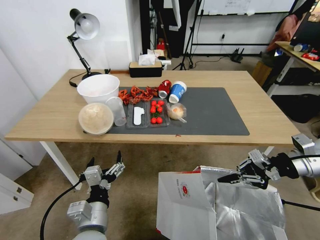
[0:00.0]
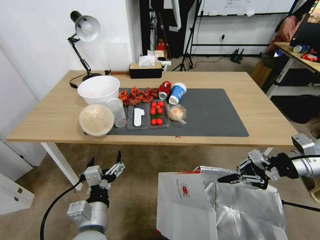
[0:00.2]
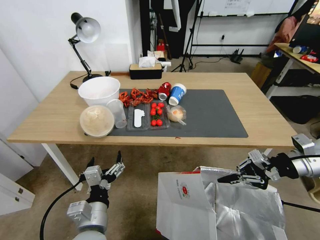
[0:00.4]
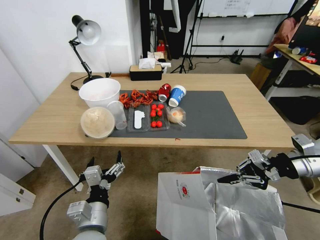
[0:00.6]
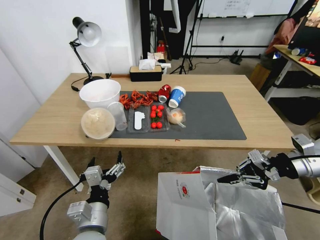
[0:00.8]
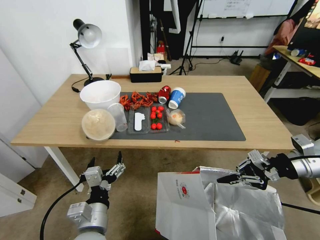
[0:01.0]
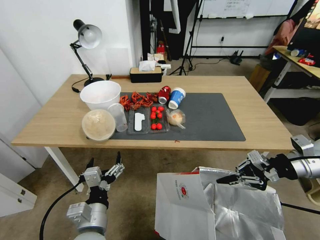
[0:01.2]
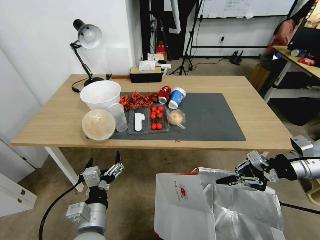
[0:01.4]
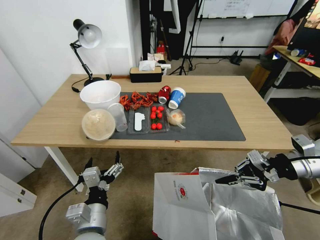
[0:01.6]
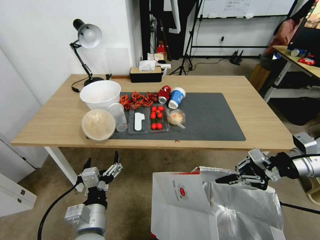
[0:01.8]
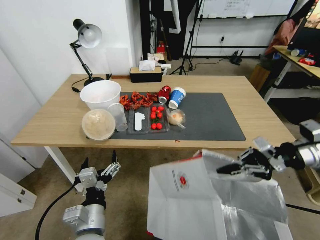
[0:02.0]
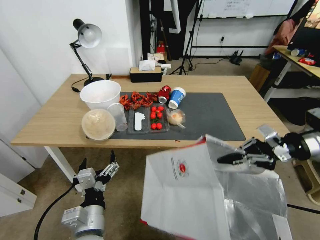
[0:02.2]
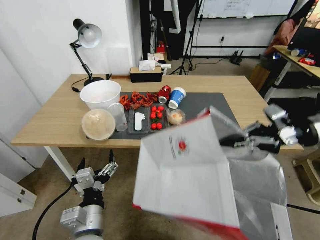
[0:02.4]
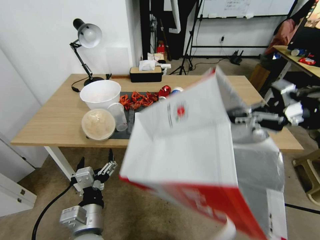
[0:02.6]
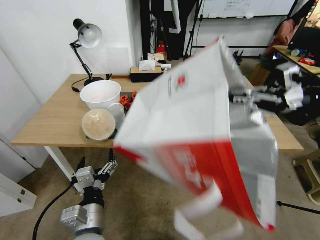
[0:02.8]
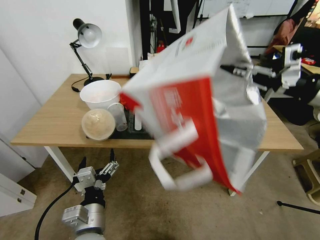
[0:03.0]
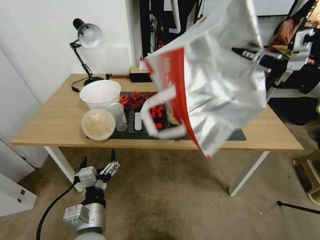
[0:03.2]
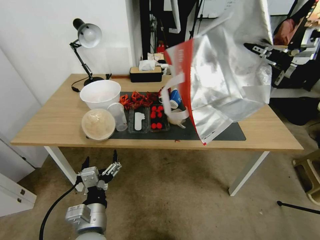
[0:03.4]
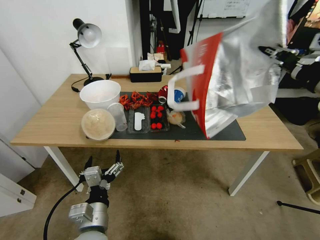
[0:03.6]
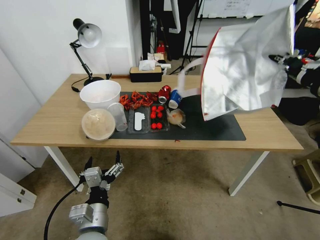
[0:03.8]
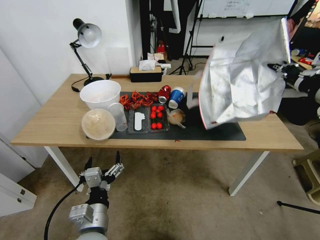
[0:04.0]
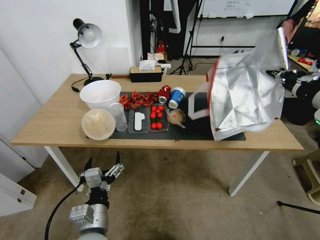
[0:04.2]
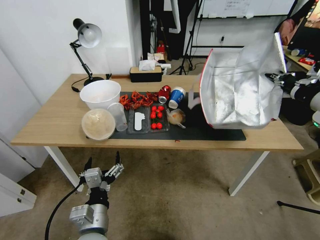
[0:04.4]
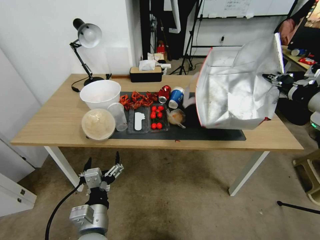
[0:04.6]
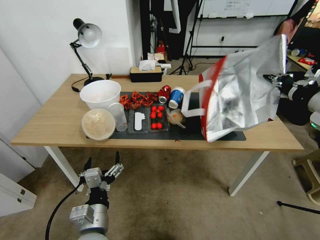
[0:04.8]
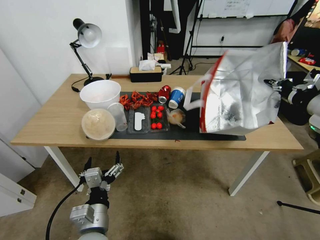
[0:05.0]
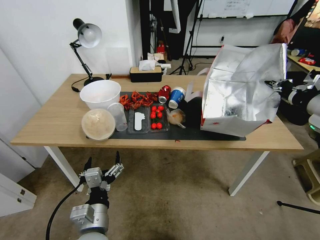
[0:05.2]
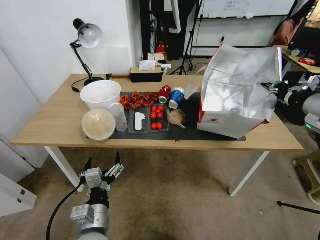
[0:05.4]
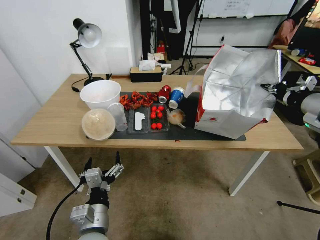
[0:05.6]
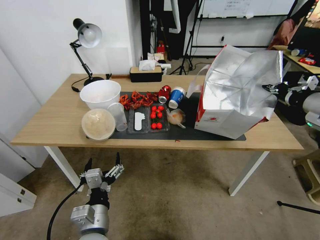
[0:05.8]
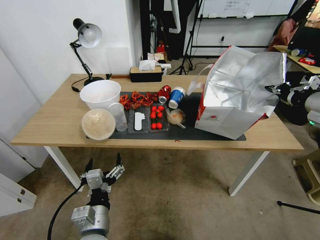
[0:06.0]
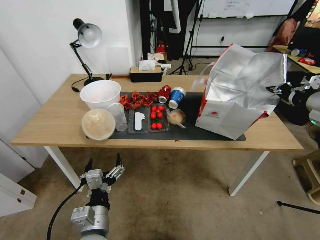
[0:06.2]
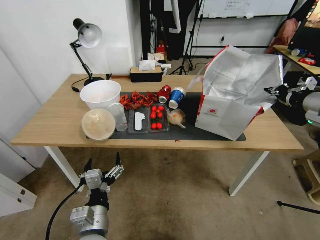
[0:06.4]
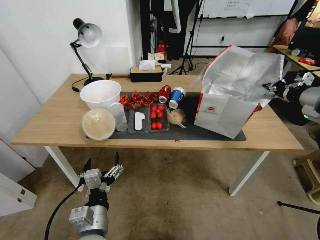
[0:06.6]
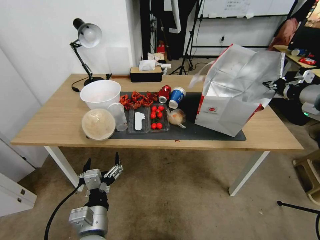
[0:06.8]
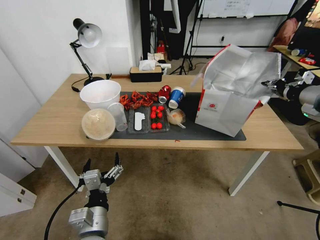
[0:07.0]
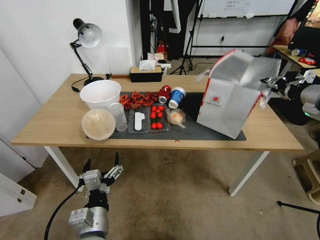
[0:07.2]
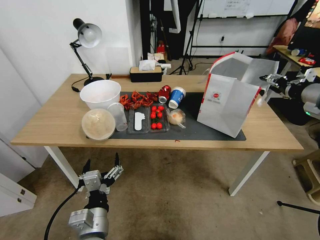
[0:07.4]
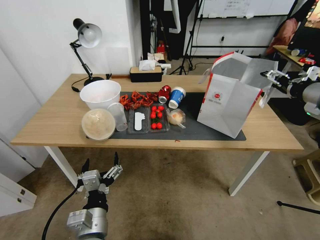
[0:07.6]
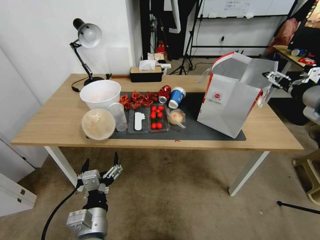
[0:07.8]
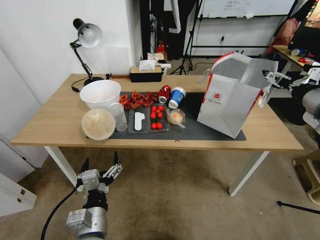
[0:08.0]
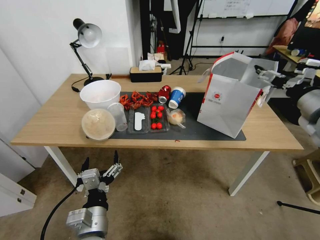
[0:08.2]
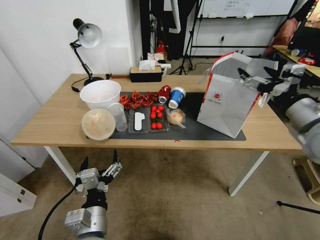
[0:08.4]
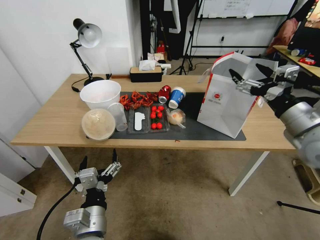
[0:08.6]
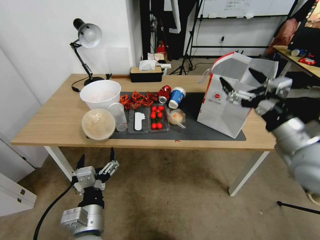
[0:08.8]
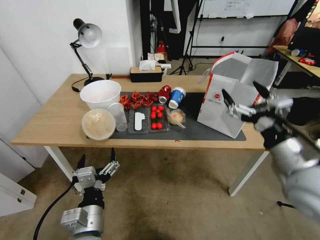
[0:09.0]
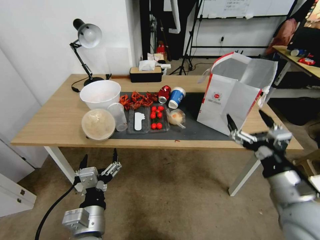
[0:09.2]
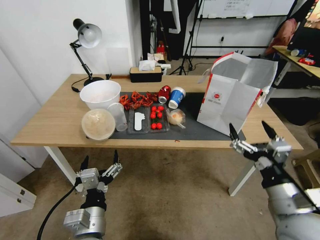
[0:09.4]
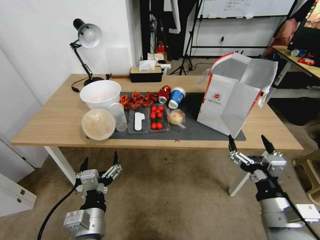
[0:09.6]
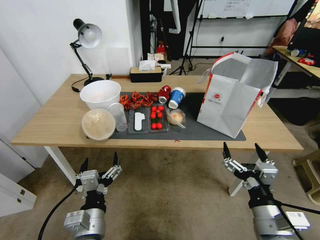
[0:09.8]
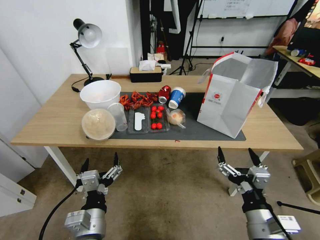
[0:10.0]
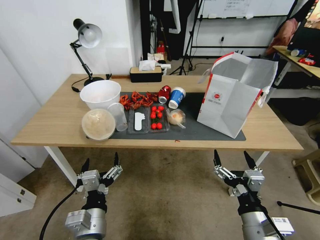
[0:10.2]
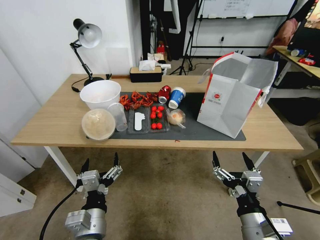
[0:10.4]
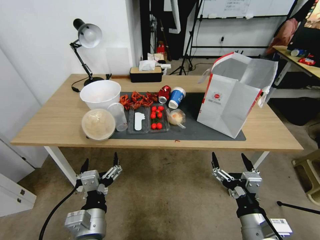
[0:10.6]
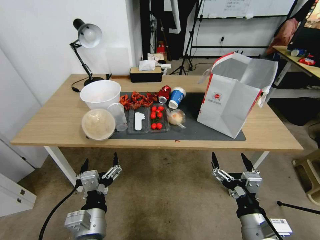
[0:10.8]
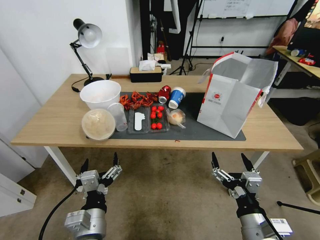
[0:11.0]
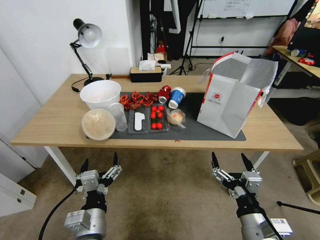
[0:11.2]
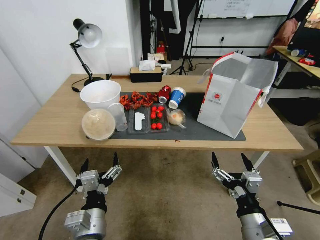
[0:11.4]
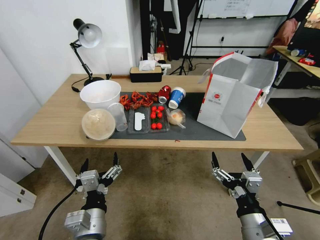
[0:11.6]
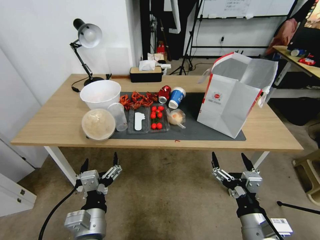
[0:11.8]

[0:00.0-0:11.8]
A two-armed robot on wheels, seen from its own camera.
Task of the whole recording: Pick up the food delivery bag from the floor and place it on the table.
0:01.4 to 0:03.0: The right gripper goes approximately 15 cm upward.
0:04.4 to 0:06.0: The grippers move only a little.
0:06.0 to 0:07.4: The right gripper opens.
0:07.4 to 0:08.8: The right gripper moves backward, to the left and downward, roughly 15 cm.
0:08.8 to 0:10.4: The right gripper is displaced downward, backward and to the left by some 25 cm.
0:10.4 to 0:11.8: Neither gripper changes place.
